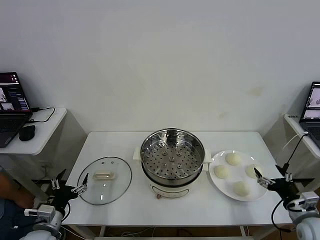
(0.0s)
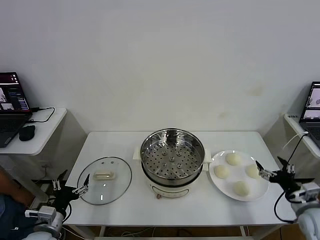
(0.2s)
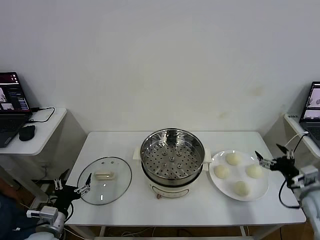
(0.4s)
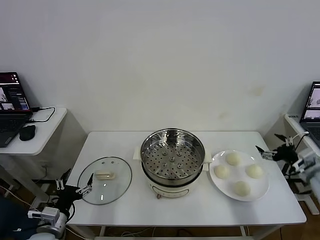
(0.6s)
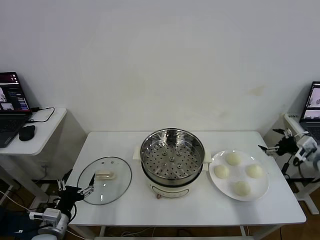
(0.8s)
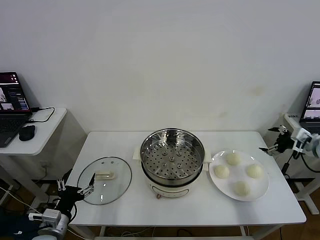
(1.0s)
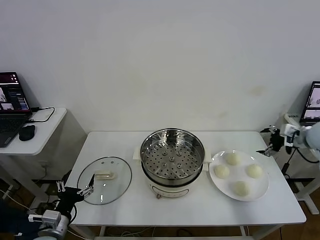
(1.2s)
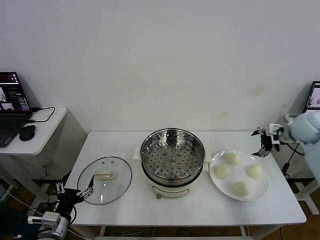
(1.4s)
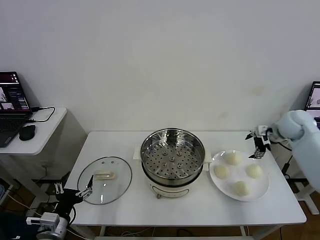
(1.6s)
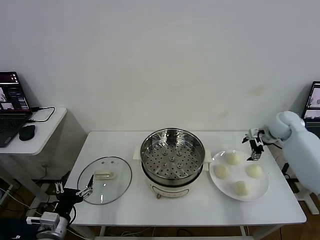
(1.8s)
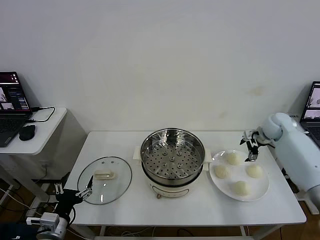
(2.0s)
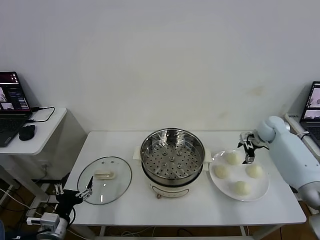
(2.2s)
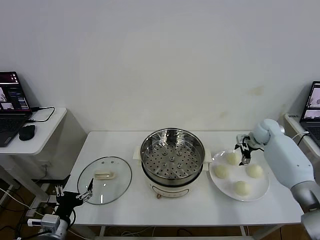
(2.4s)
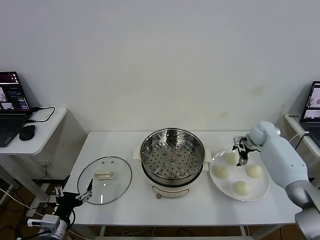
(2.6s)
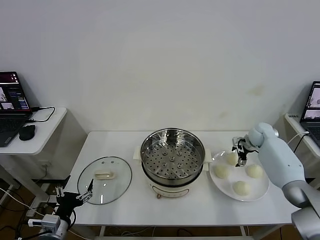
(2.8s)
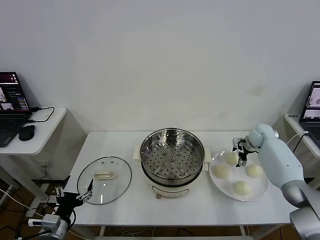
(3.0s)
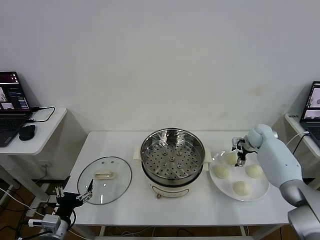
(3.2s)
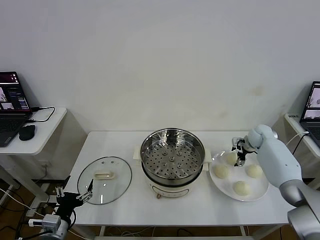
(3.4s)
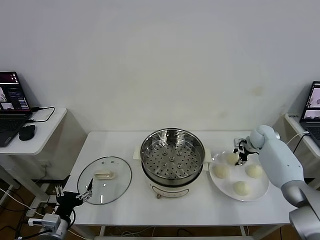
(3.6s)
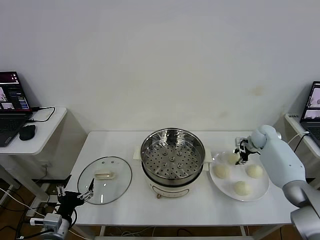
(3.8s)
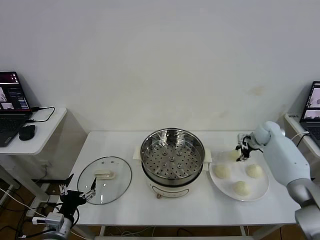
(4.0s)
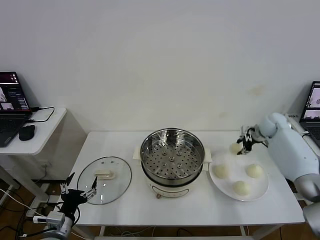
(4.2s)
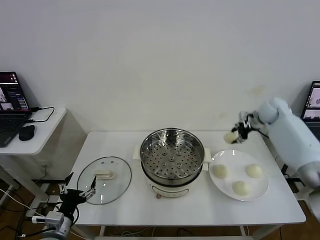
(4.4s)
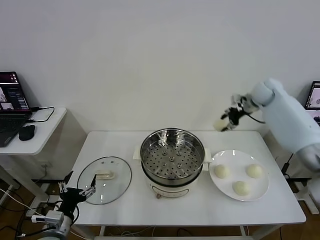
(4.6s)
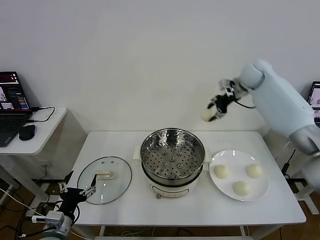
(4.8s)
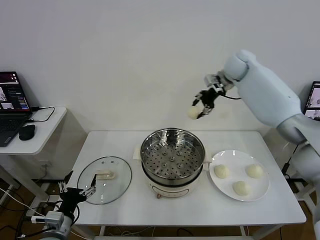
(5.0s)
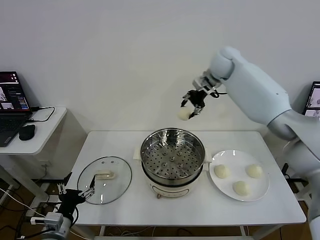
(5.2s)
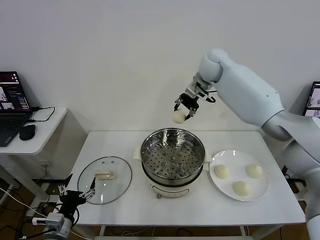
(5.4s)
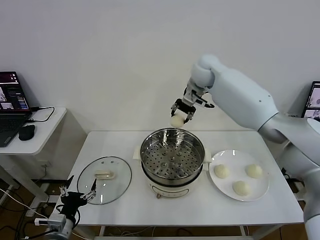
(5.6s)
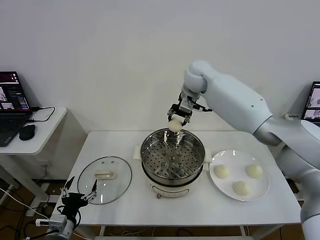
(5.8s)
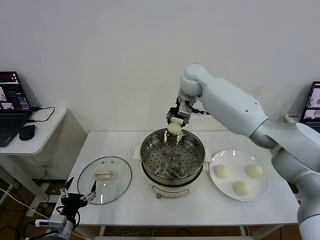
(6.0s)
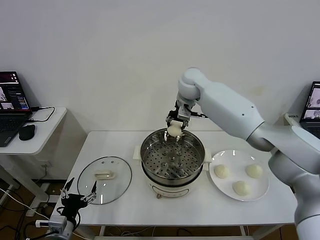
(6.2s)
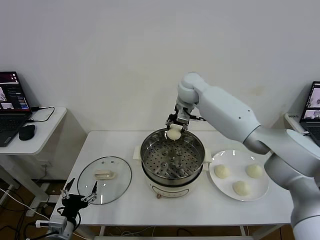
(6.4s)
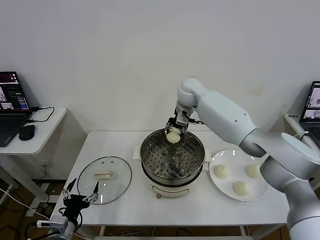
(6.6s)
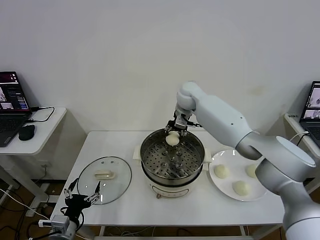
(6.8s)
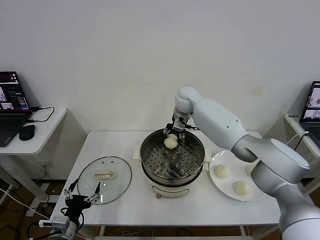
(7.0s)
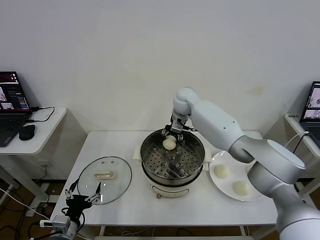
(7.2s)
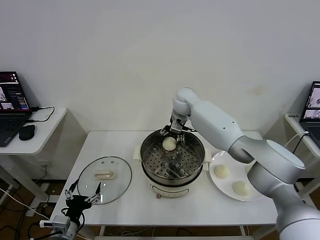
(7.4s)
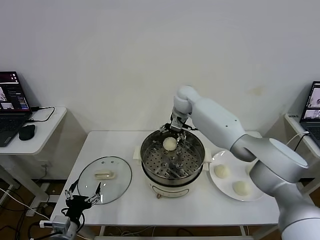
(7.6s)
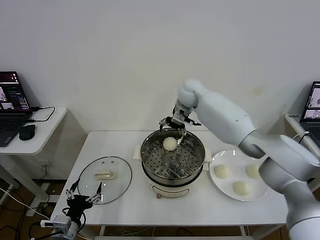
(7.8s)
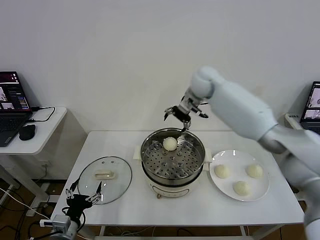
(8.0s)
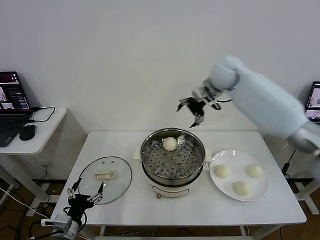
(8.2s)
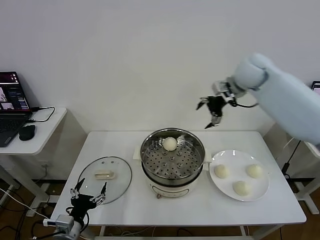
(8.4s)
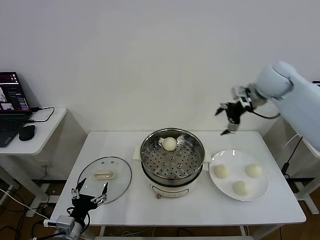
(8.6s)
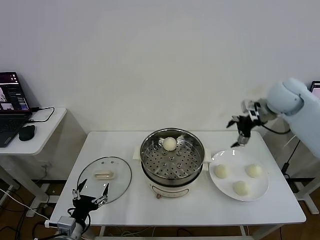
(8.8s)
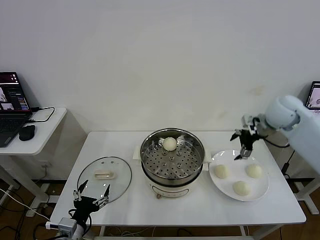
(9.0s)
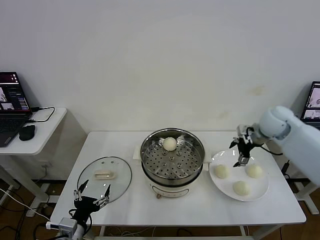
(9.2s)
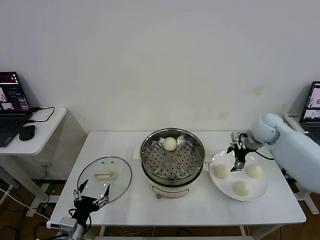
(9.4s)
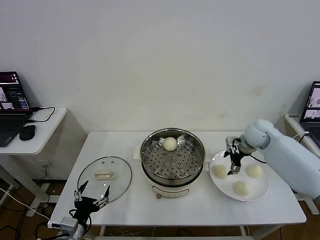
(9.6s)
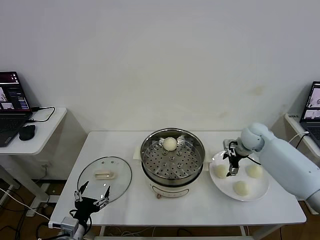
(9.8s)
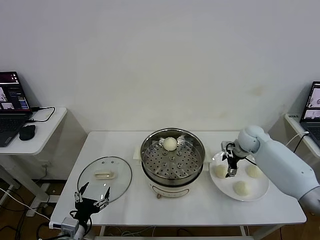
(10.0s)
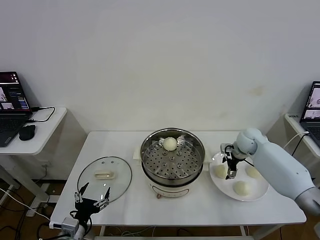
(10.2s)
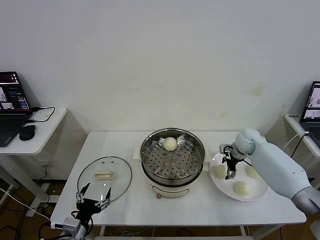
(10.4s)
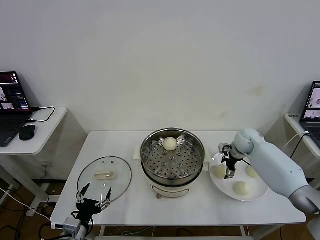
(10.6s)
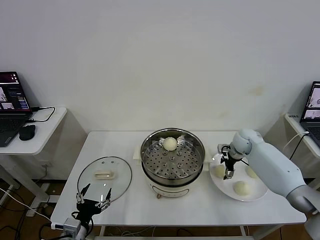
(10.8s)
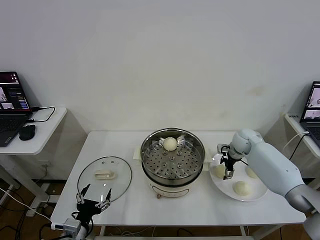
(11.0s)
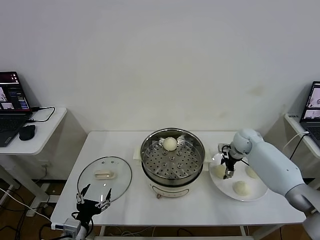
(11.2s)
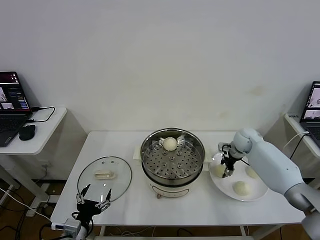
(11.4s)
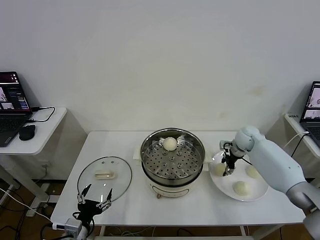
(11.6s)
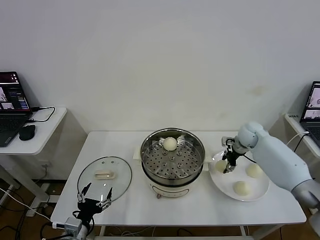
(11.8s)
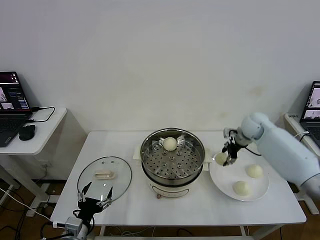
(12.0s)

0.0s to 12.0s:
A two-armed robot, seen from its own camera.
Task of the whole recording: take steamed baozi put them in steamer then cover it.
Step, 0.0s to 3.6s: Grasp the baozi in the plate with right gripper.
Step, 3.8s to 7.4s: Place the baozi on the steamer with right gripper.
Step, 7.8s to 11.4s: Grasp the baozi in the plate with right gripper.
1.6s to 3.0s: The right gripper shifts roughly 10 cm downward and forward.
3.0s to 4.4s: The right gripper shifts approximately 15 cm upward, and closes its fingers.
4.4s to 6.0s: The right gripper moves to the left, approximately 30 cm.
6.0s to 7.6s: The right gripper shifts roughly 5 cm downward, and opens its fingers.
7.6s to 9.0s: The right gripper is displaced to the right and backward by some 30 cm.
9.0s to 10.4s: The right gripper moves downward, about 15 cm.
10.4s to 12.0s: The right gripper heads upward, covering some 10 cm, and closes its fingers.

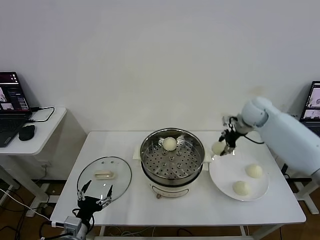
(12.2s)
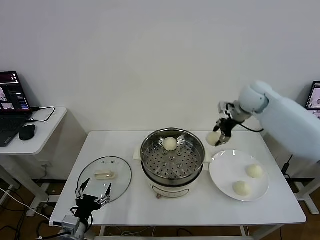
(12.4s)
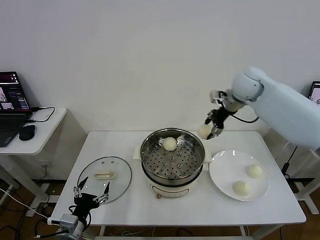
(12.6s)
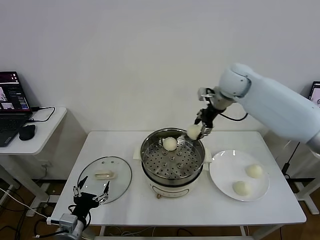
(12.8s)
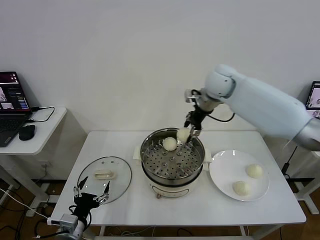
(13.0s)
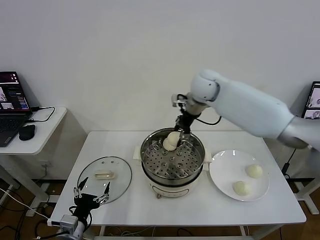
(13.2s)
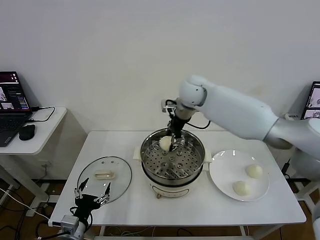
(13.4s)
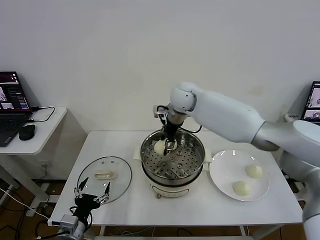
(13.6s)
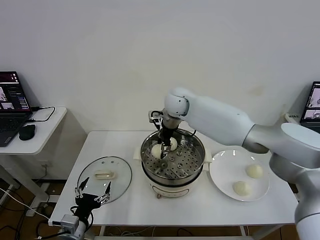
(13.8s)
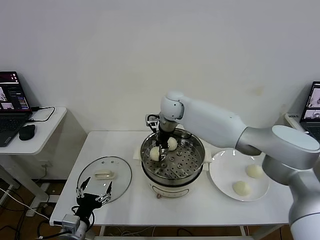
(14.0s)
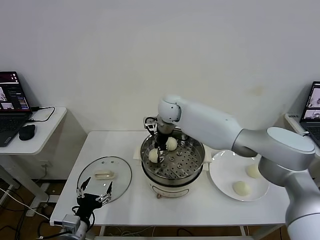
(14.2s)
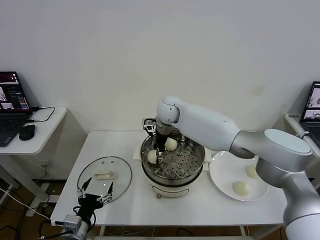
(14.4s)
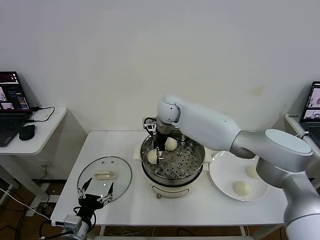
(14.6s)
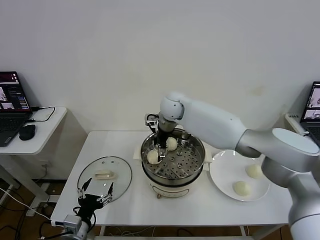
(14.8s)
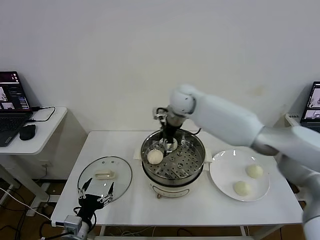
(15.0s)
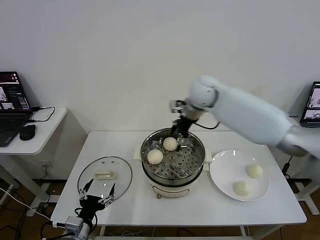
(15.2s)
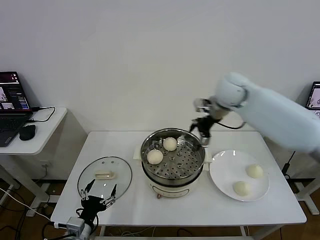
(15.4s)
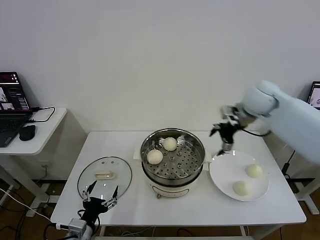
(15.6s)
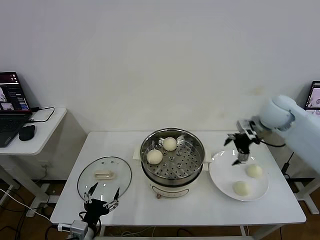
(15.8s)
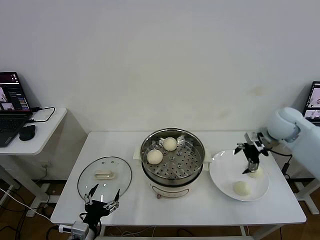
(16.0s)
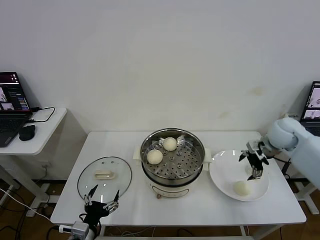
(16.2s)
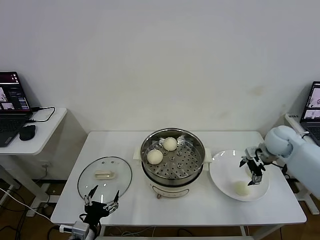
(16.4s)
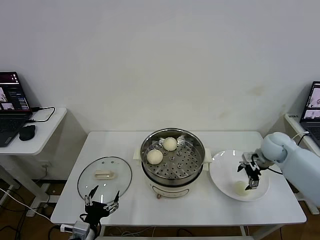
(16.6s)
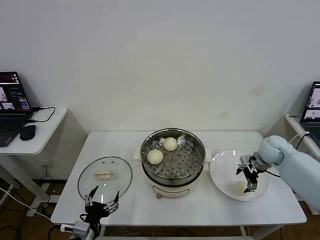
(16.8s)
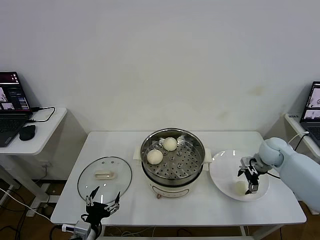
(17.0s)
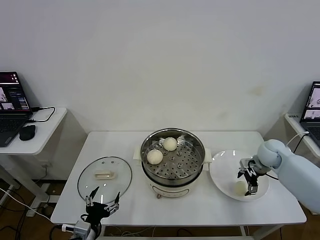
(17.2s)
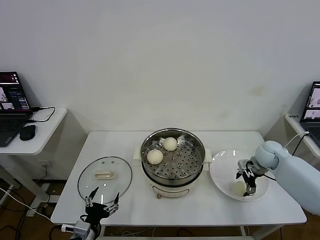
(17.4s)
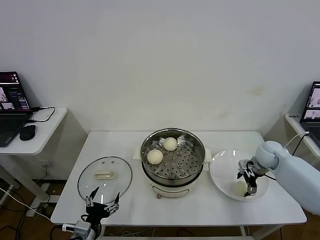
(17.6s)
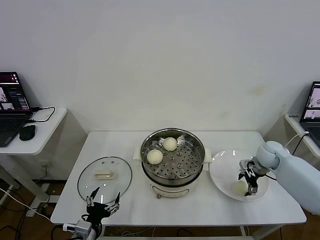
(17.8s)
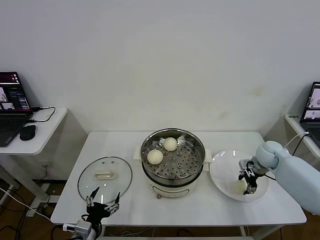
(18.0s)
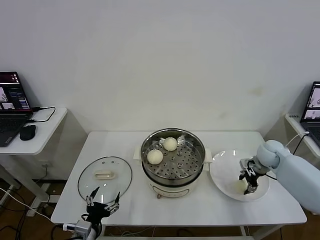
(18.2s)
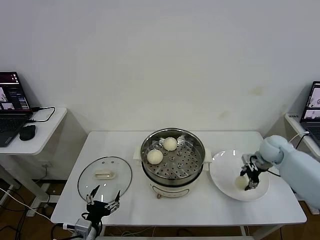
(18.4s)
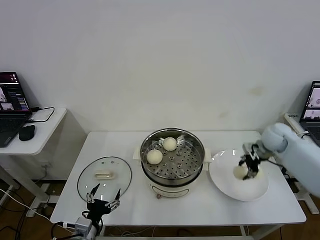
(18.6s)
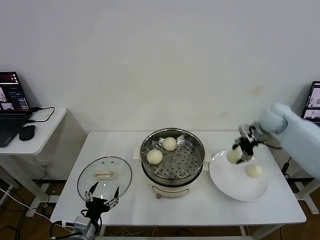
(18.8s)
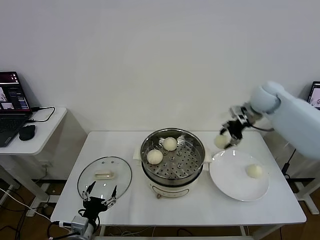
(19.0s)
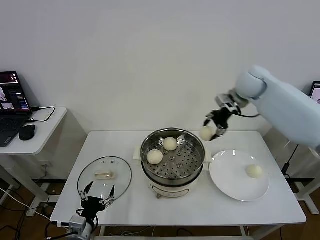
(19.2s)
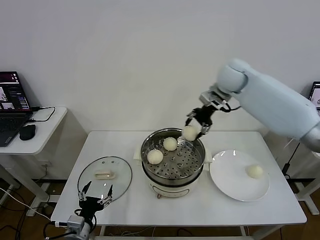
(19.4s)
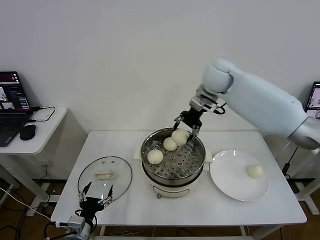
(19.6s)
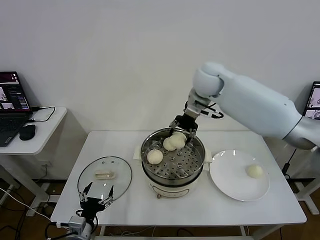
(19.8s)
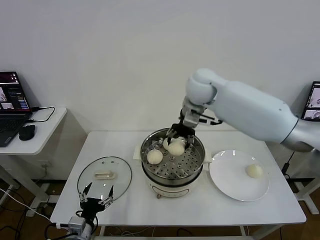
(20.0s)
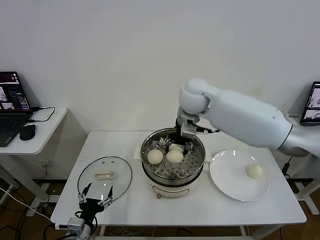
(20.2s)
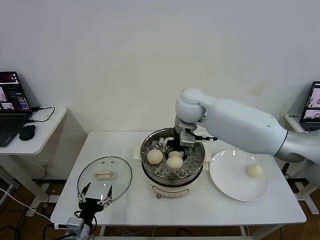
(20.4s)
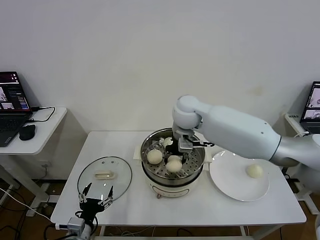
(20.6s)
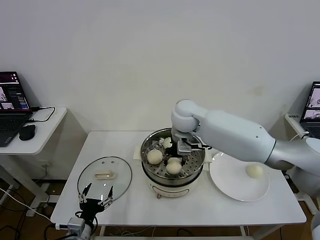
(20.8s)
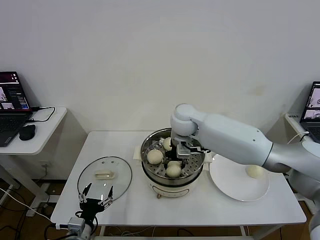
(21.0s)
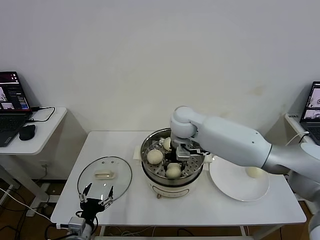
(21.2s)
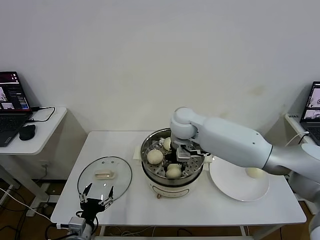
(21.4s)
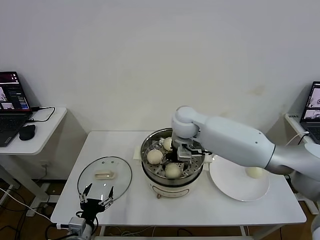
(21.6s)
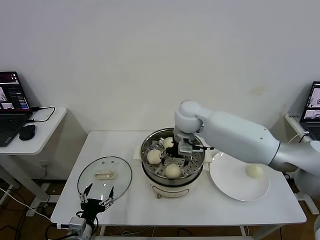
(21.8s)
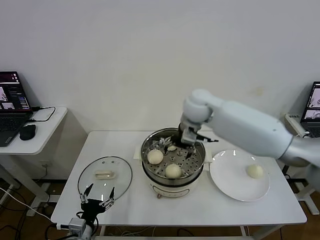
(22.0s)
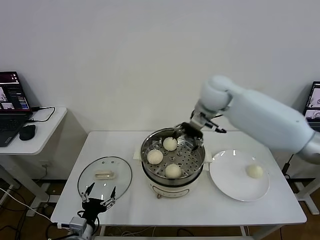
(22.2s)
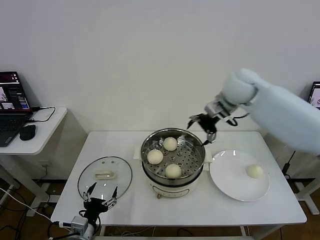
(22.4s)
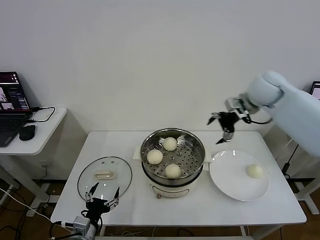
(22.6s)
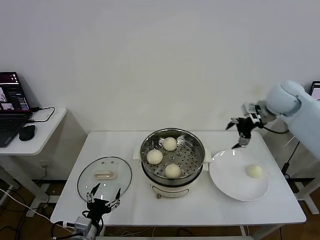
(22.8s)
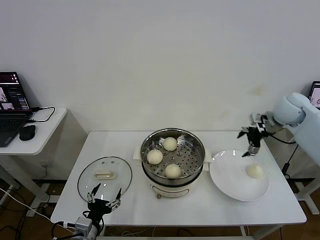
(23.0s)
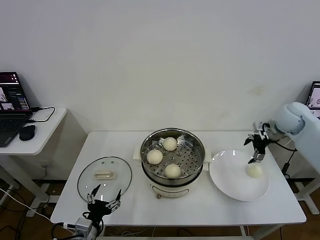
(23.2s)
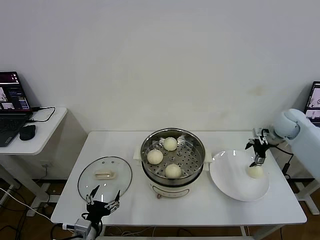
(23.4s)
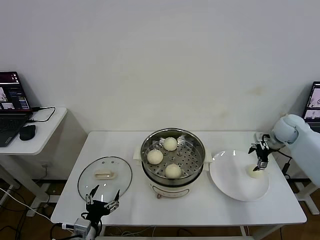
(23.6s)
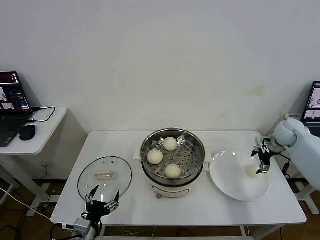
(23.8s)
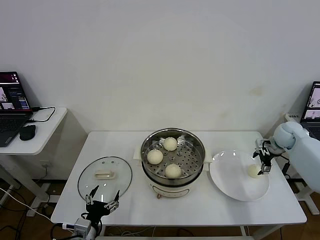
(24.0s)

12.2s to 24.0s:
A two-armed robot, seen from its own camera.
Task of the whole recording: take steamed baozi put them in steamer then cover it.
Step, 12.2s to 14.8s: Place the baozi on the steamer with right gripper.
Step, 15.0s to 18.2s: Grasp the baozi in the plate with right gripper.
Step, 18.4s to 21.6s: Place the baozi on the steamer with right gripper.
12.2s to 13.6s: The right gripper travels to the left by approximately 25 cm.
13.6s to 15.2s: The right gripper moves to the right, some 10 cm, and opens.
15.2s to 16.6s: The right gripper travels to the right and downward by approximately 30 cm.
16.6s to 18.2s: The right gripper closes its fingers.
18.2s to 19.6s: The right gripper moves upward and to the left, about 35 cm.
19.6s to 21.0s: The right gripper goes some 15 cm downward, to the left and backward.
21.0s to 22.6s: The right gripper moves to the right, roughly 25 cm, and opens its fingers.
22.6s to 24.0s: The right gripper goes roughly 25 cm downward and to the right.
